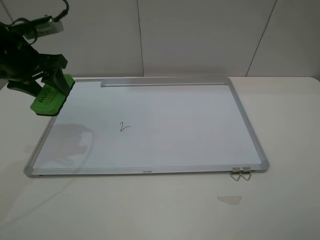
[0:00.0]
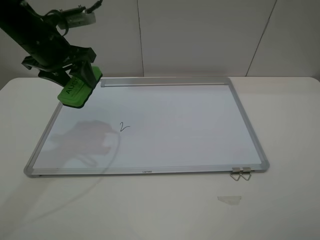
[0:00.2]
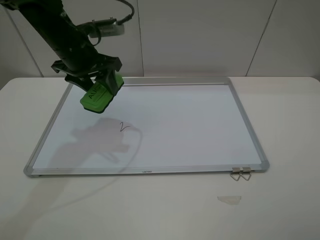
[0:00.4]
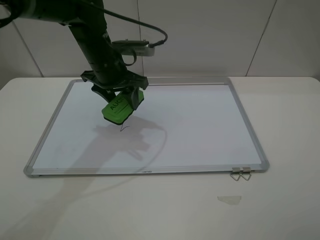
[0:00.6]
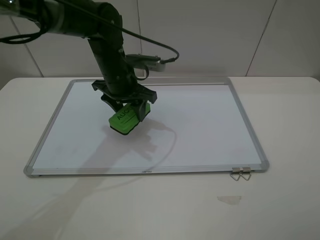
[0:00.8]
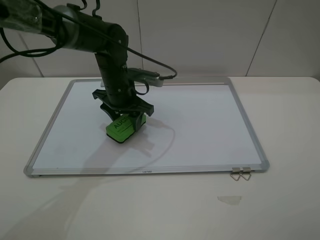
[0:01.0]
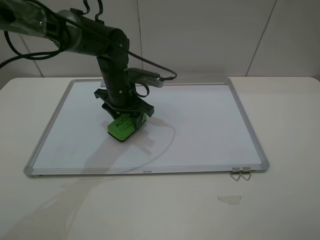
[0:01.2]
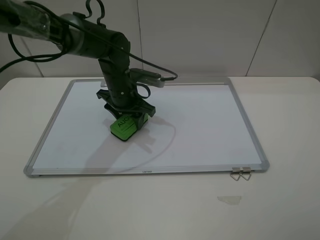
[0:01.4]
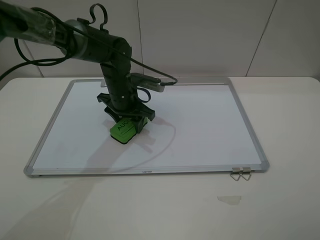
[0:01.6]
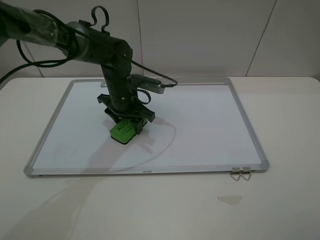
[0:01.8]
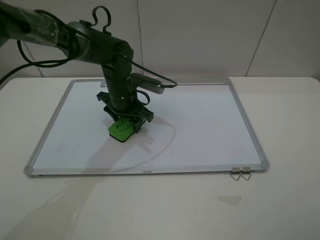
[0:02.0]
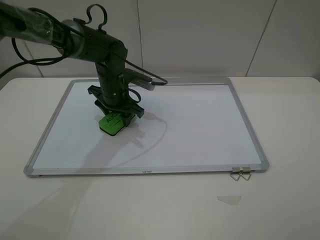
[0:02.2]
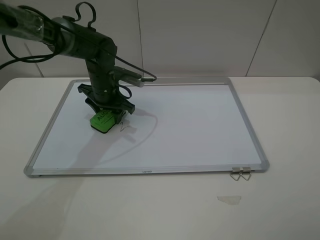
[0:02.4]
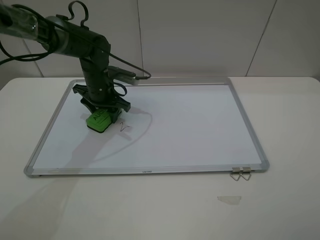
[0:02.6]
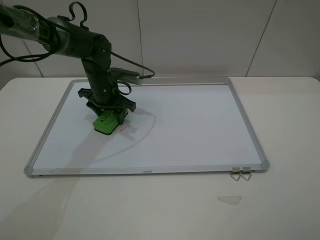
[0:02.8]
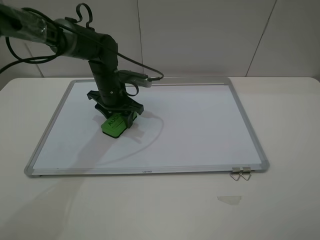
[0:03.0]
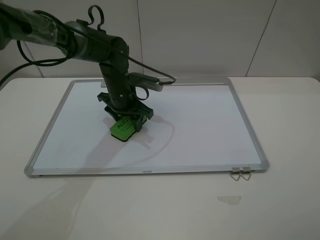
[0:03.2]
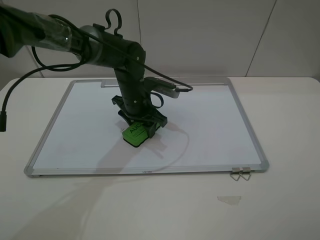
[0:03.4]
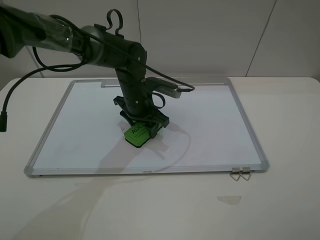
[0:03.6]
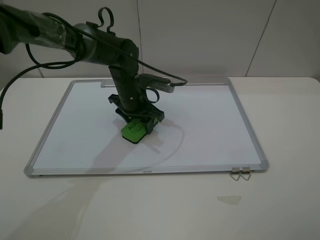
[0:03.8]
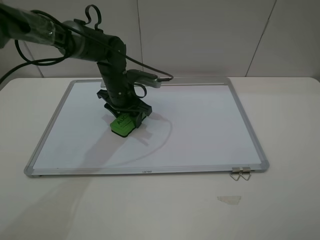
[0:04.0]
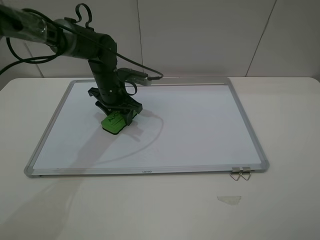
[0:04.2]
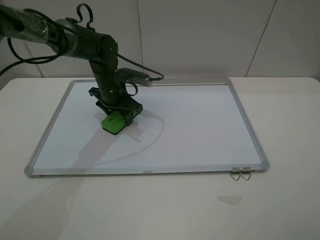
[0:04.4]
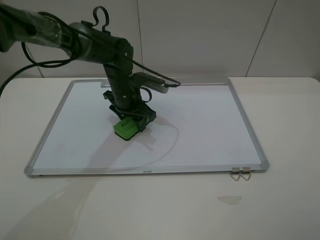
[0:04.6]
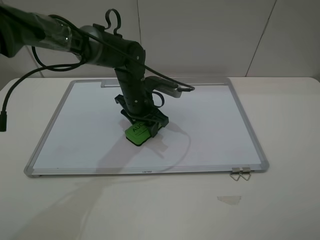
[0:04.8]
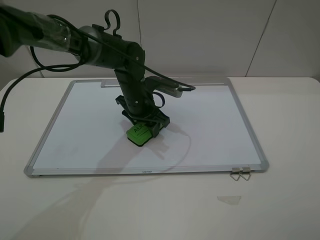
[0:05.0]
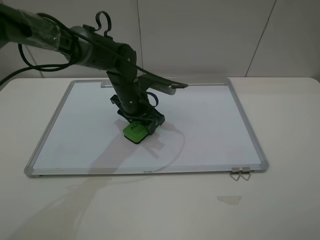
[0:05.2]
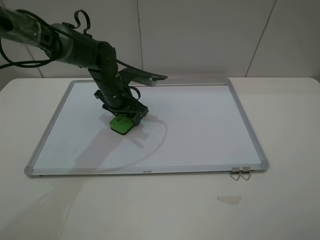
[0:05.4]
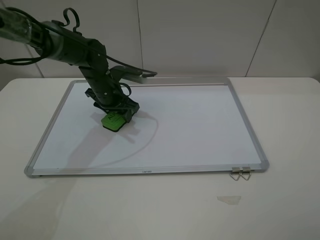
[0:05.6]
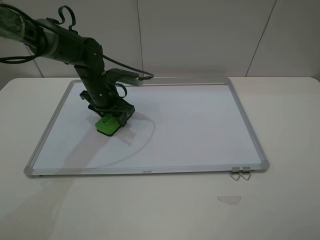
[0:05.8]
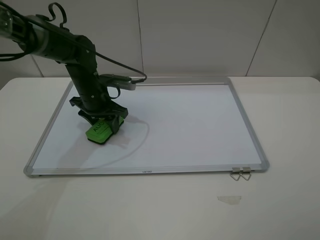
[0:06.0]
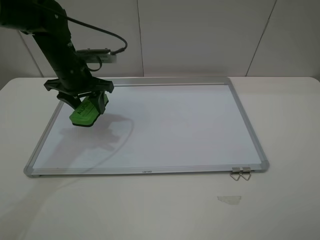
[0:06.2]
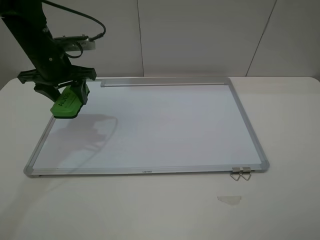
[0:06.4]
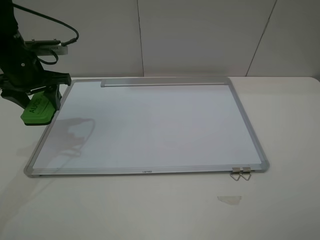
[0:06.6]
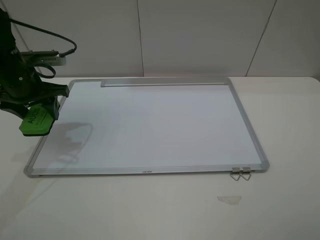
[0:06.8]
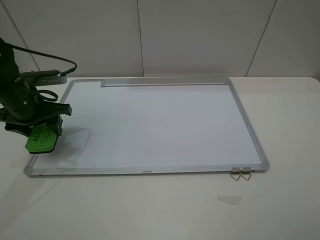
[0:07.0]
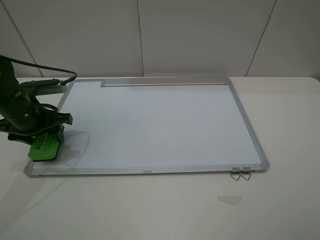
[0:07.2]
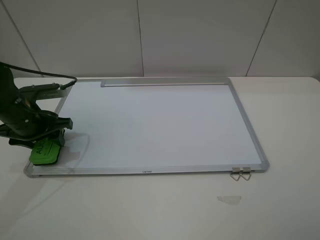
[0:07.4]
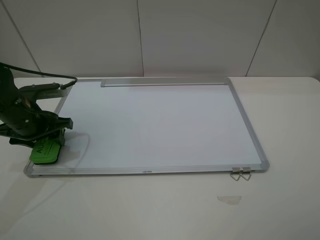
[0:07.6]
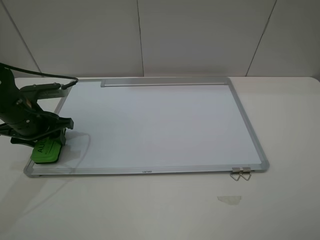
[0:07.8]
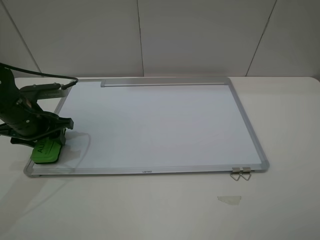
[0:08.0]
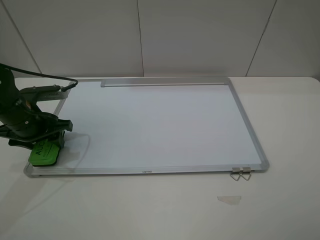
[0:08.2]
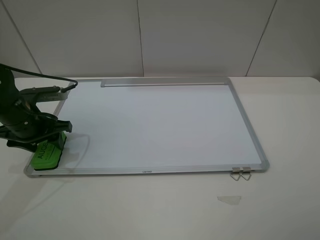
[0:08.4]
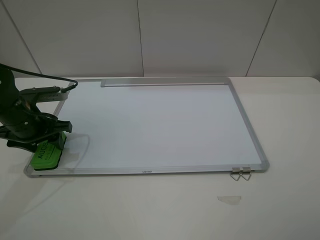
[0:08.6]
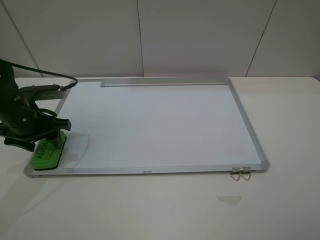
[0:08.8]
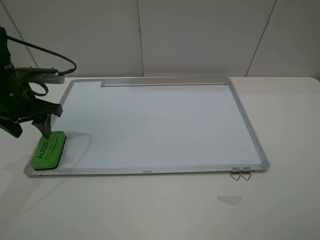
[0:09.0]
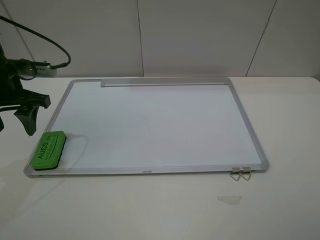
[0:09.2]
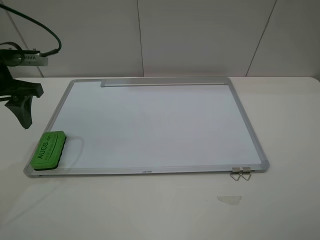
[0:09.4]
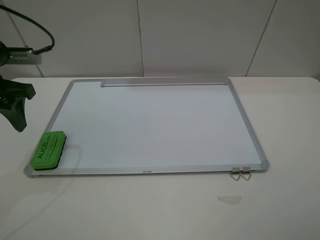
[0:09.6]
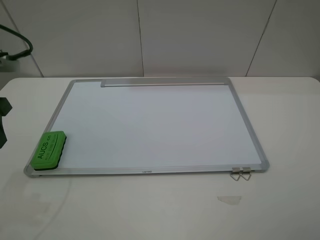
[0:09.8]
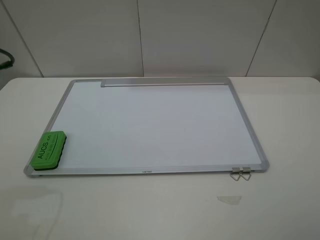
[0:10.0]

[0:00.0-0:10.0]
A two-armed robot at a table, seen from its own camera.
Step, 0:00.0 to 0:05.8: Grasp the eraser and wipe the blackboard with the left gripper.
Step, 0:06.0 to 0:08.8: Place the eraser with the left gripper.
0:00.0 to 0:01.4: The left gripper shifts some 20 cm to the right and downward.
0:01.4 to 0:02.8: The left gripper changes place by roughly 5 cm.
0:02.8 to 0:04.2: The left gripper goes to the right and returns, approximately 10 cm each way.
0:04.2 to 0:05.8: The left gripper moves roughly 5 cm to the right and comes back.
0:05.8 to 0:07.2: The left gripper shifts some 15 cm to the left and backward.
0:07.2 to 0:08.6: Both grippers stay about where they are.
0:08.6 to 0:10.0: The left gripper goes about 20 cm upward and backward.

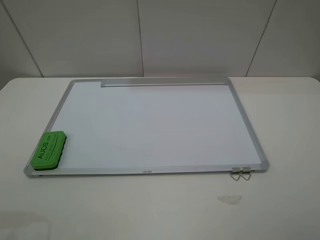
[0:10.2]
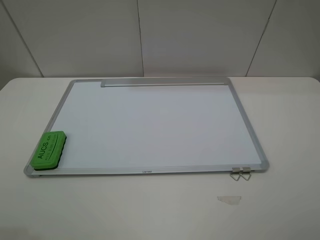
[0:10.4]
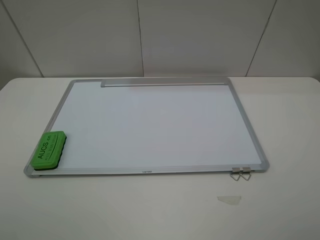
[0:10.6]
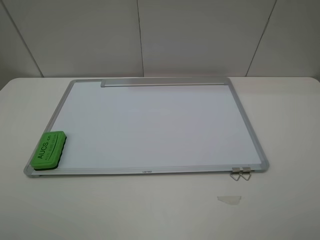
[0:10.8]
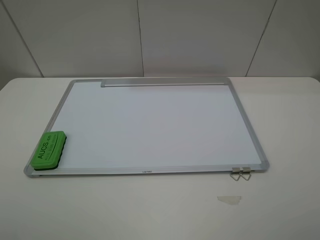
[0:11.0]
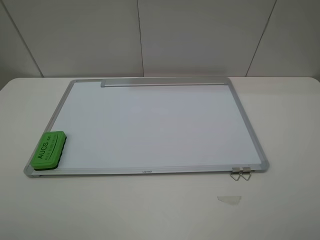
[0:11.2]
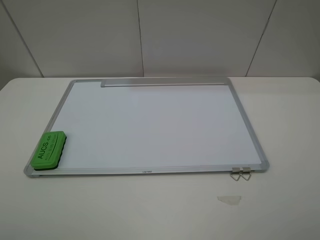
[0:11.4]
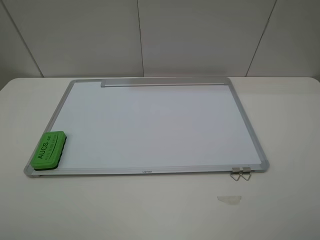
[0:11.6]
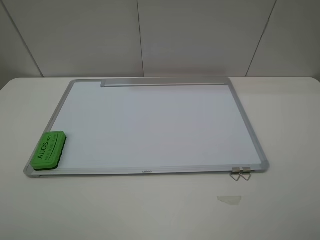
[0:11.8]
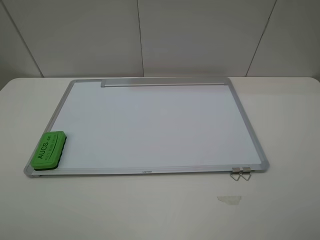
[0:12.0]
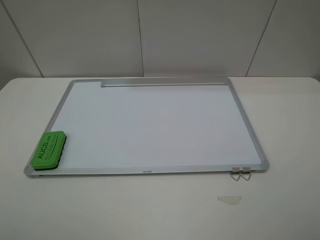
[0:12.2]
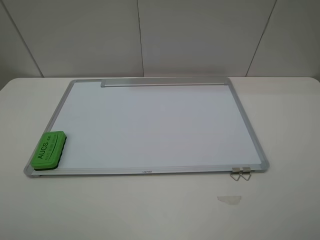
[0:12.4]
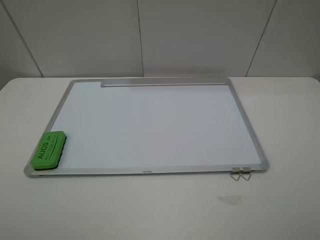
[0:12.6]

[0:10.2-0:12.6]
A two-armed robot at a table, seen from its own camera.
0:11.4 to 0:12.6: Both grippers stay about where they are.
